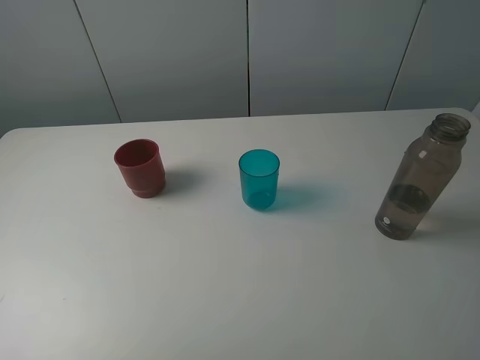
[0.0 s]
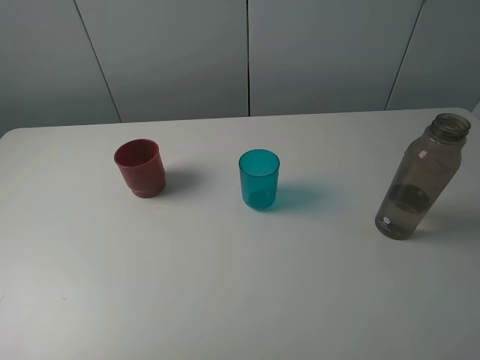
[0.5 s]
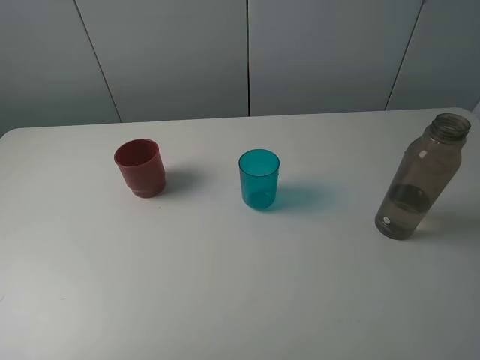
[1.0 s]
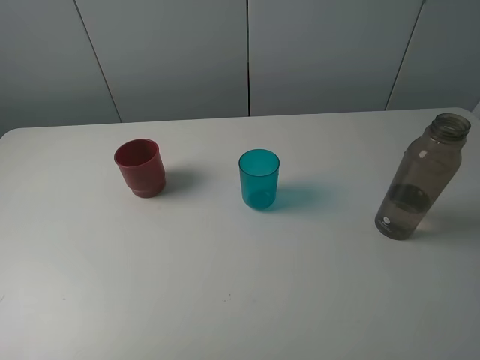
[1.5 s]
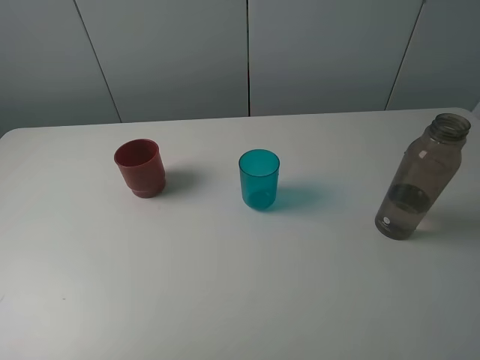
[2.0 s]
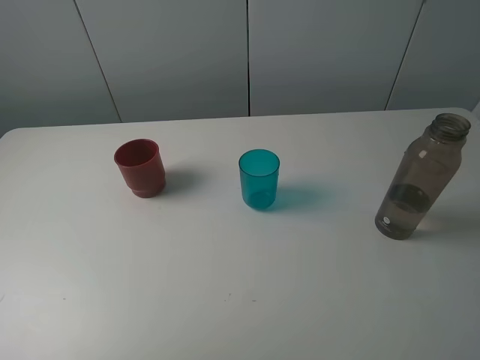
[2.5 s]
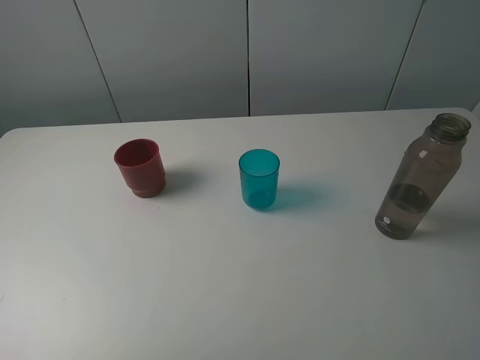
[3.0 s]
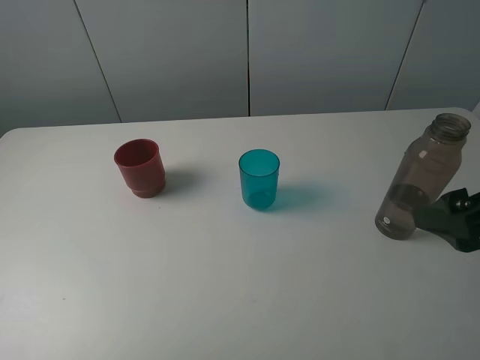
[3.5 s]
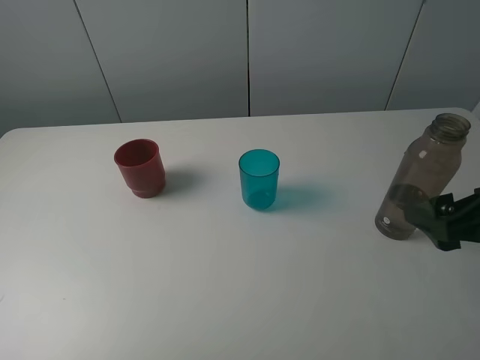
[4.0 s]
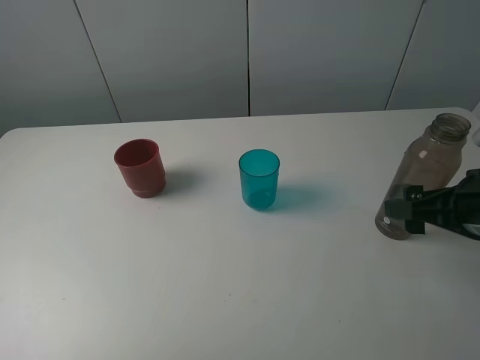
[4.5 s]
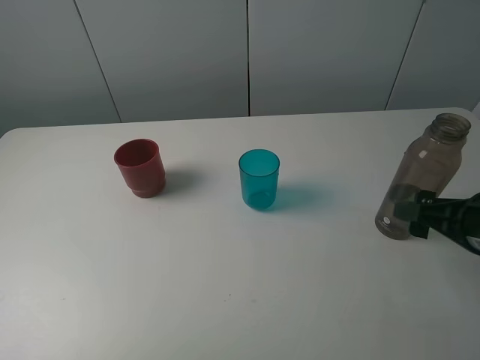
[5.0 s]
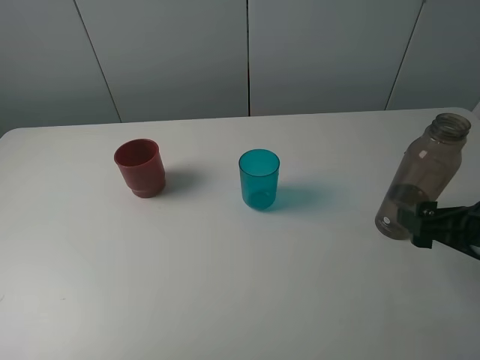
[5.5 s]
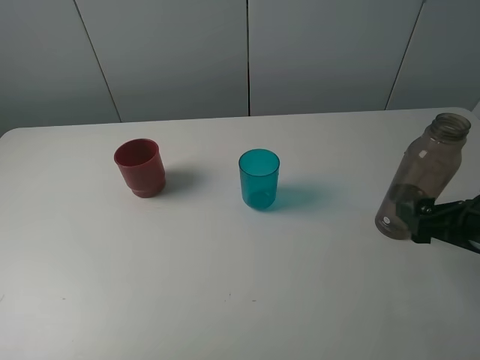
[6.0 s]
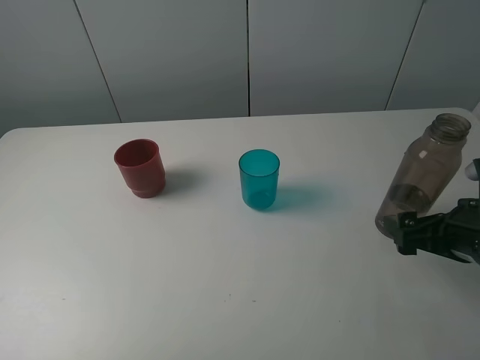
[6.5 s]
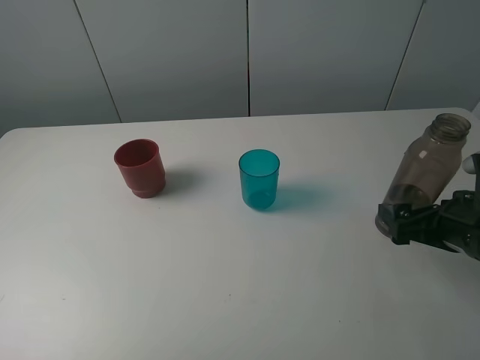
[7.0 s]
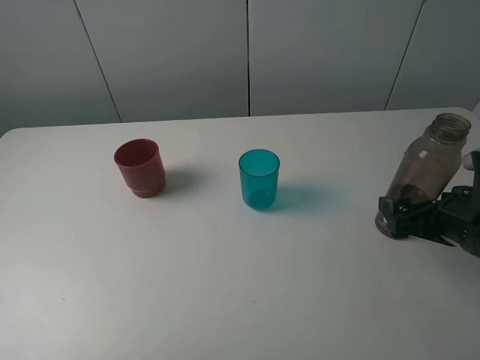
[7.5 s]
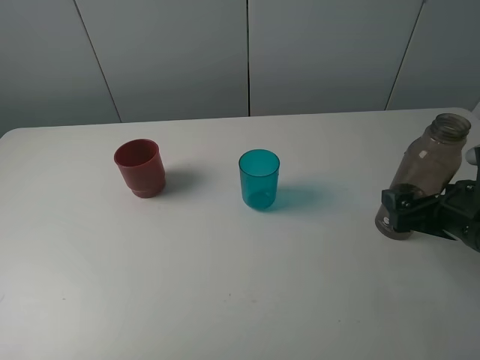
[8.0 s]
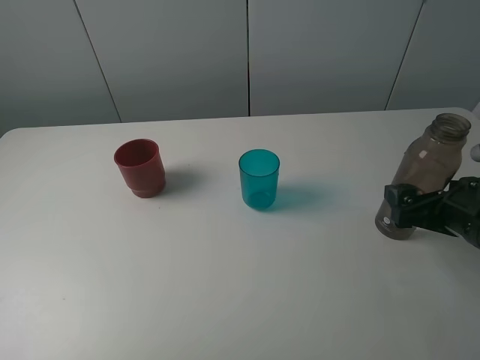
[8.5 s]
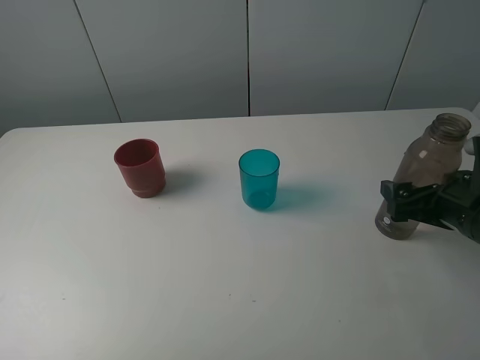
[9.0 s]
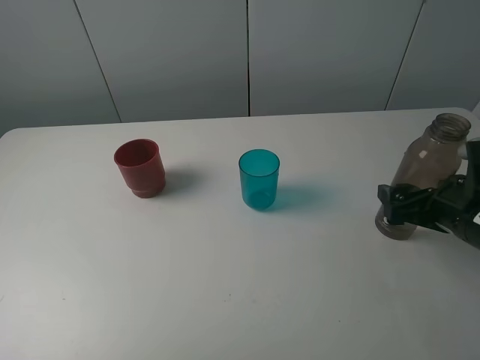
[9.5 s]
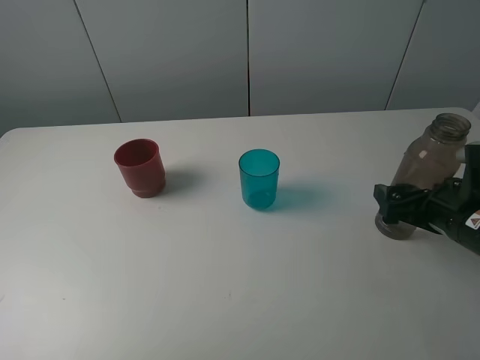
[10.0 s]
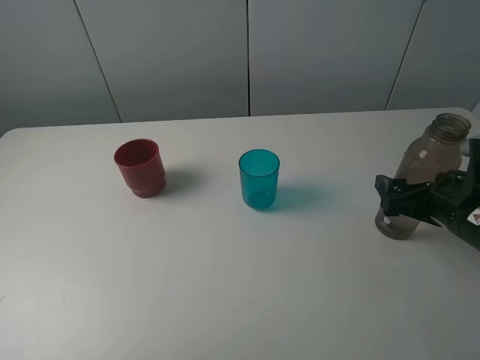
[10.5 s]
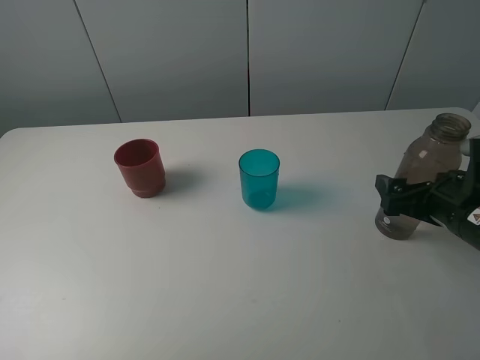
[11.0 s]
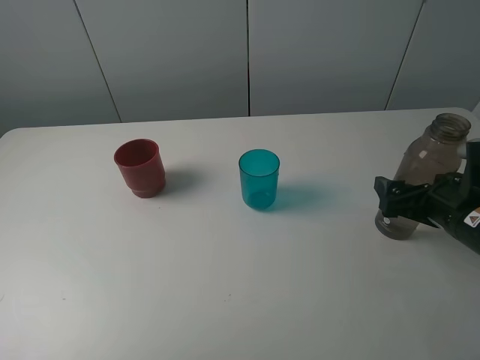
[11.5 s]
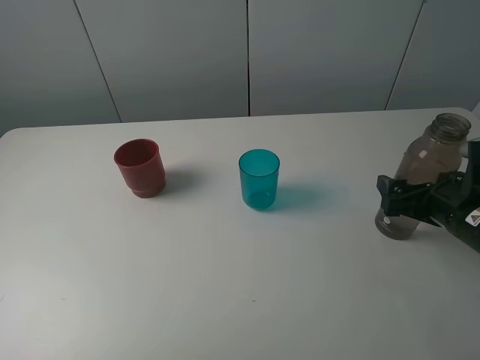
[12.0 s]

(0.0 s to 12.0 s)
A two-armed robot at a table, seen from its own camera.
Task of the whole recording: pick up the bottle and pour water into the cup, then pick up the cup containing water and pour it into another cup.
0.0 s - 2.0 s: Both grippers stay put.
2.0 s - 4.0 s: The right gripper travels forward and downward by some 15 cm.
4.0 s - 6.0 s: The right gripper is displaced downward by roughly 5 cm.
6.0 s - 10.0 s: The grippers move only a little.
10.0 s - 12.0 s: Both grippers stay about where they are.

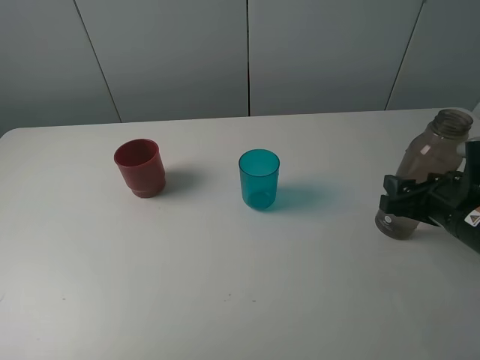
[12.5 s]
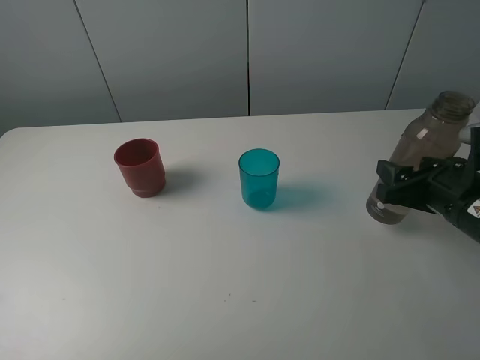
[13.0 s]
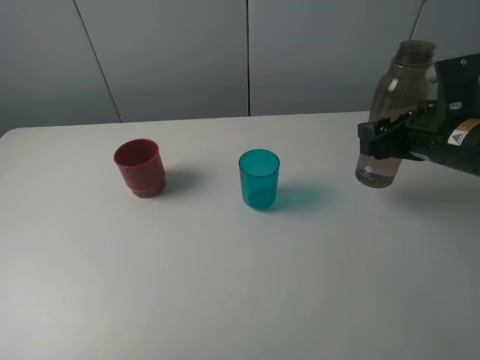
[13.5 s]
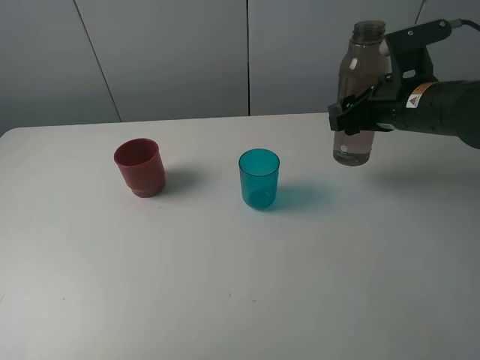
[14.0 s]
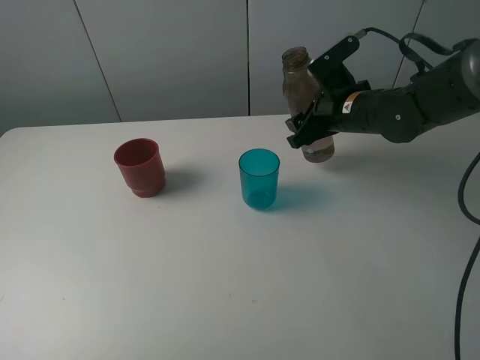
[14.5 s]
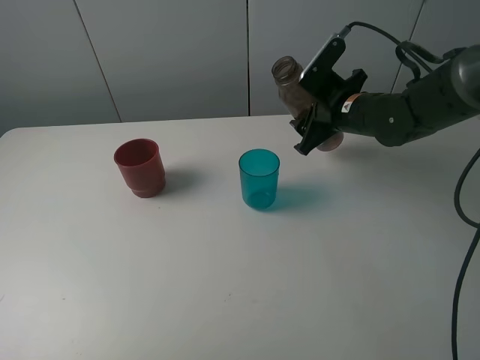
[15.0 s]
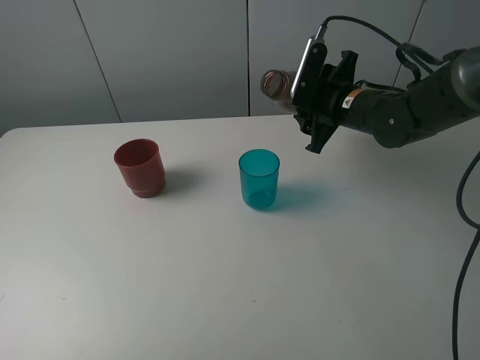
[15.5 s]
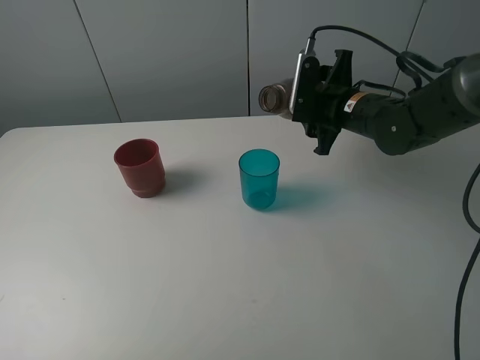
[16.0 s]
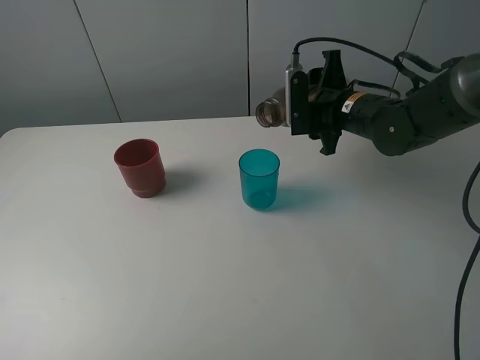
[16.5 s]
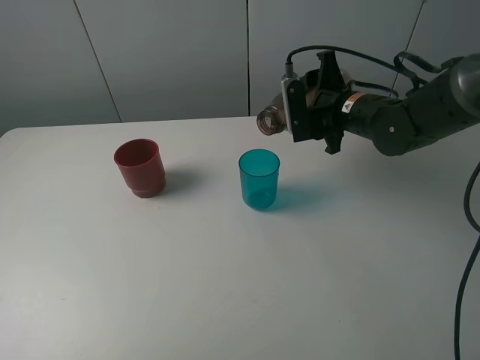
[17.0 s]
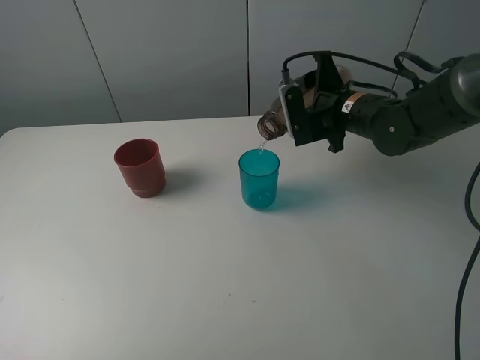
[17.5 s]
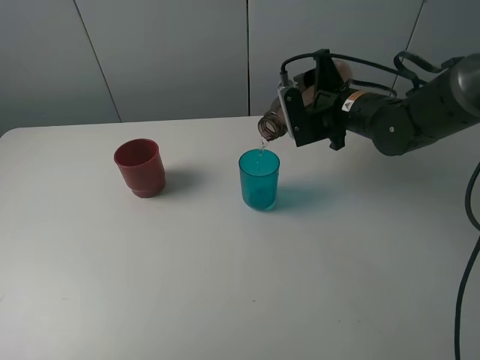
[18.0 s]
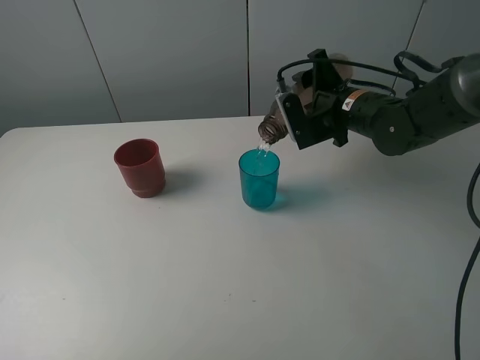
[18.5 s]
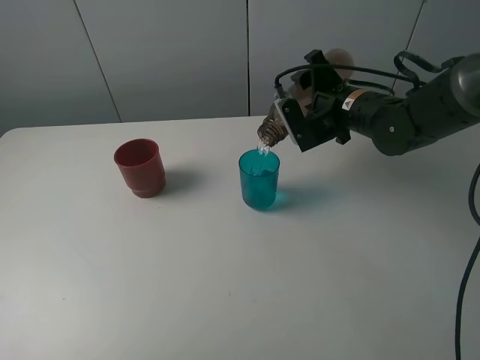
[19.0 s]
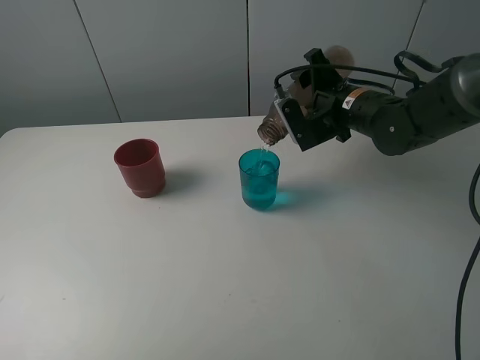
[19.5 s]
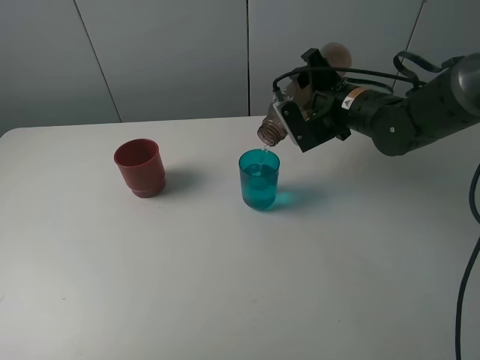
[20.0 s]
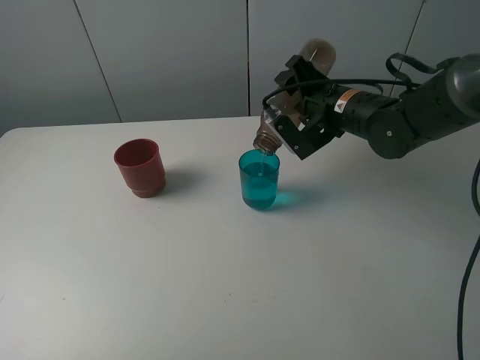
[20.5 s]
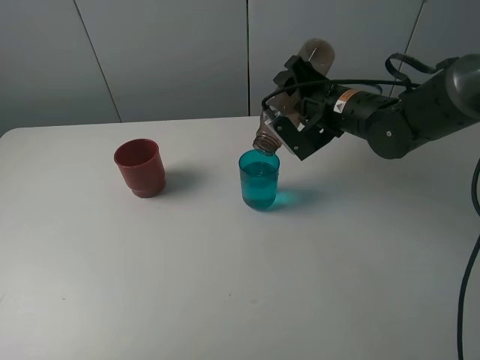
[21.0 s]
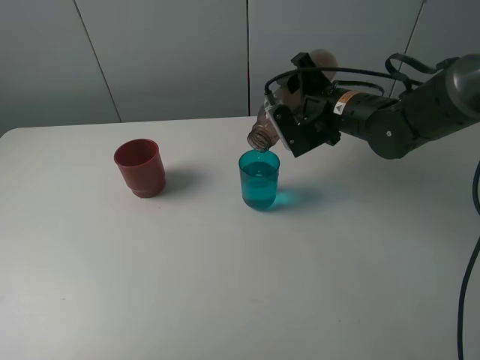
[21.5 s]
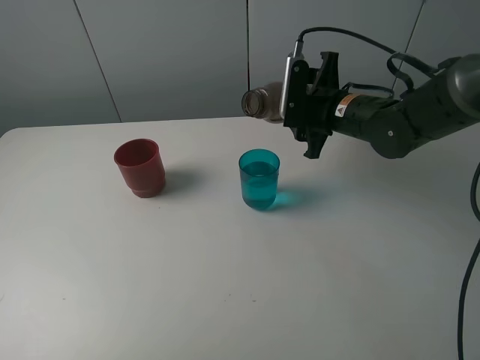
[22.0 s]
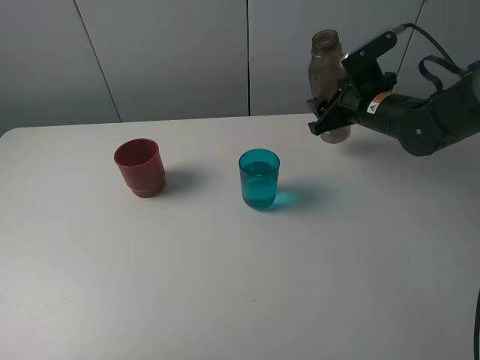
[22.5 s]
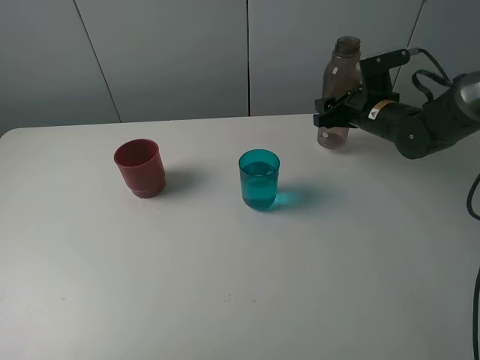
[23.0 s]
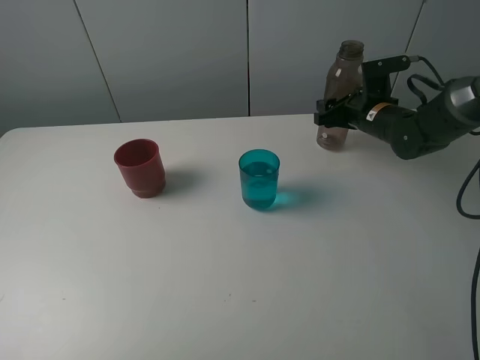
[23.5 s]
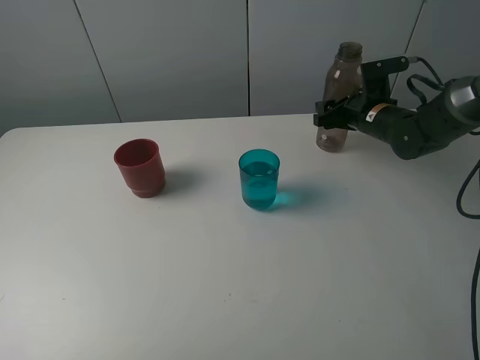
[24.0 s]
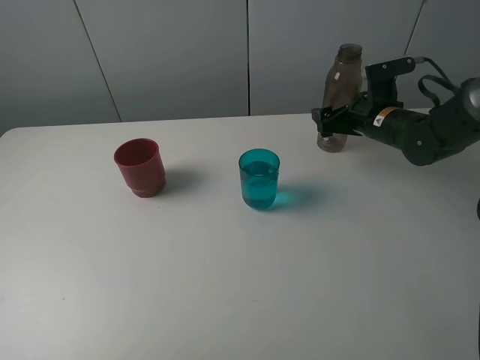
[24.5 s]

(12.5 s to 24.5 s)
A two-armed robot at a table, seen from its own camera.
Task of the whole recording: pick up the bottle and pour water into the cup, then pick up the cup containing water and pour it into another cup.
Step, 12.5 s - 21.0 s: Pour water from brown bottle to blue cup with the right gripper.
Step, 21.5 s - 24.0 s: Place the brown bottle with the right gripper.
12.5 s - 14.5 s: The right gripper is displaced forward and to the left by approximately 20 cm.
18.5 s - 20.5 s: There are only small adjustments of the grippers.
20.5 s - 22.5 s: The right gripper travels to the right by roughly 5 cm.
22.5 s - 24.5 s: The right gripper opens up.

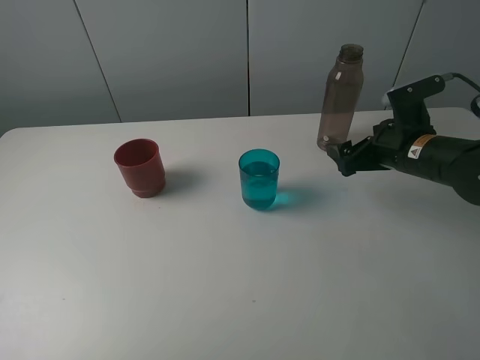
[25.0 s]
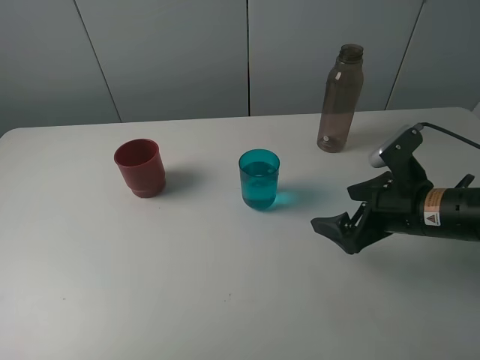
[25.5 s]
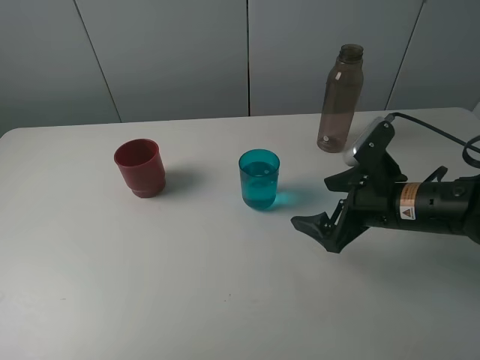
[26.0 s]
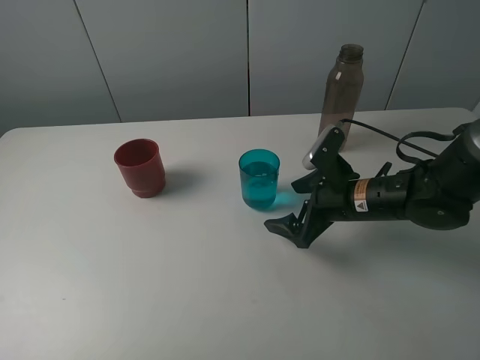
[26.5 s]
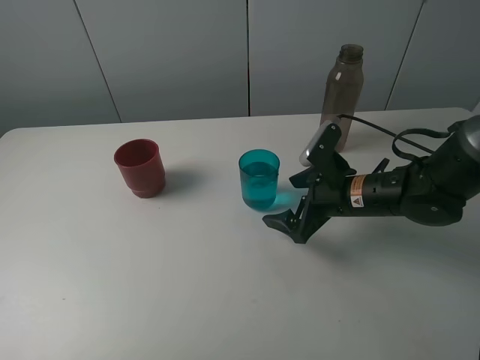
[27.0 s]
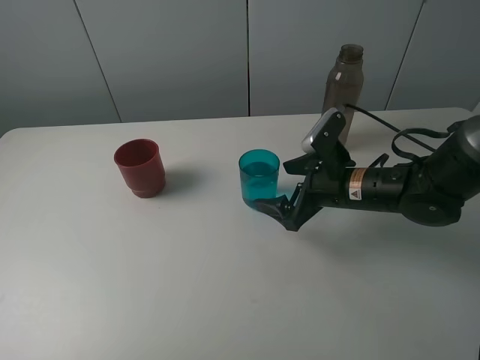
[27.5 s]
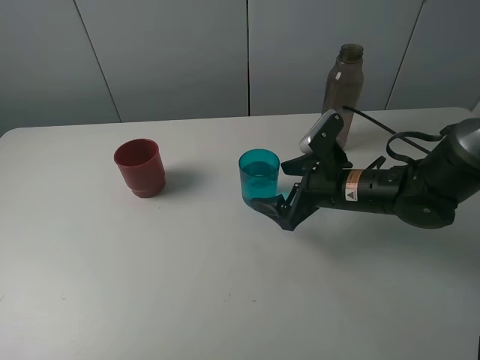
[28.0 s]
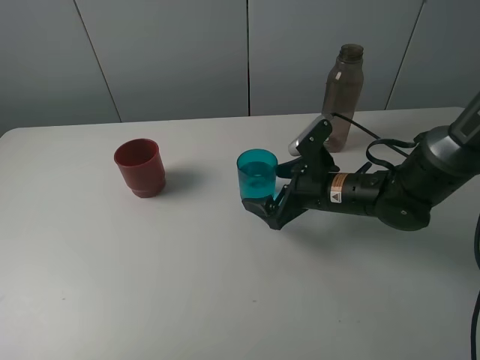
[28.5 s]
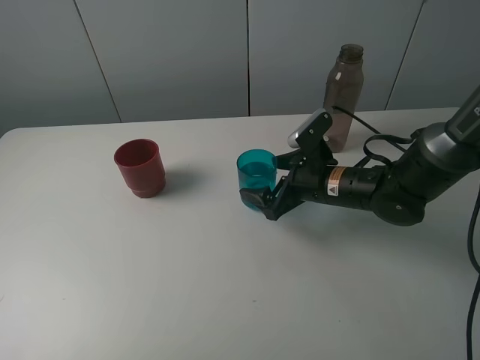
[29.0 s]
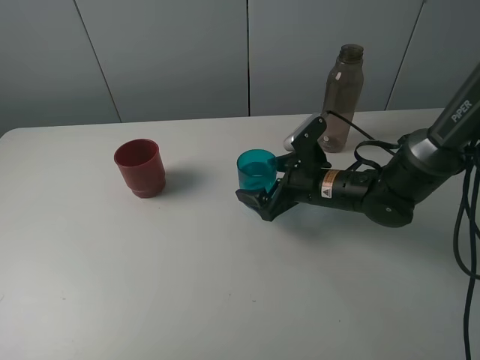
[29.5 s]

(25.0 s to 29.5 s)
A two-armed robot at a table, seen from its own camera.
Task of the whole recording: pick up the bottle and pour water into the cup, then pick up the cup containing water and pour it into another cup.
25.0 s - 27.0 s: The right gripper travels to the left by roughly 10 cm.
27.0 s - 29.5 s: The grippers make only small movements.
